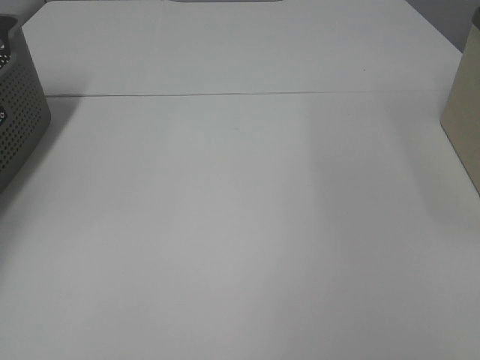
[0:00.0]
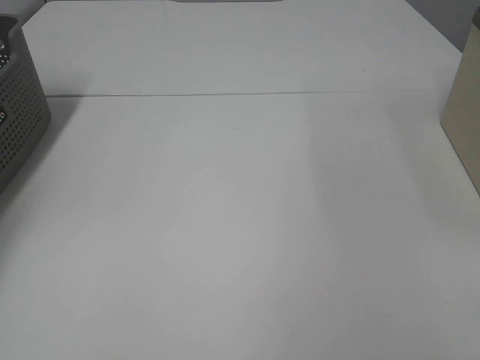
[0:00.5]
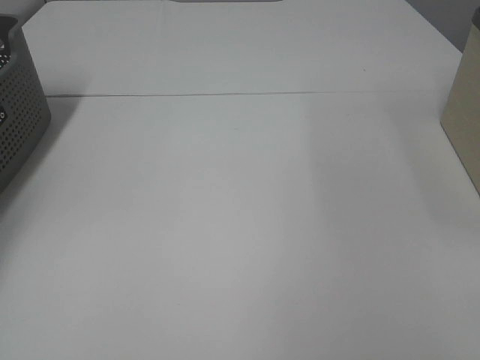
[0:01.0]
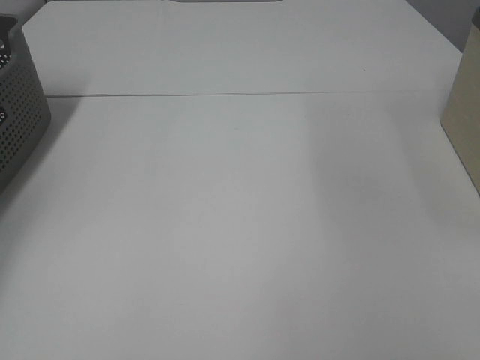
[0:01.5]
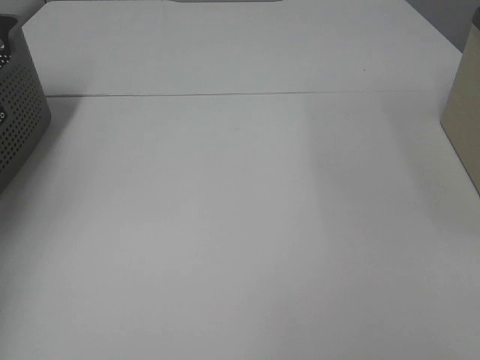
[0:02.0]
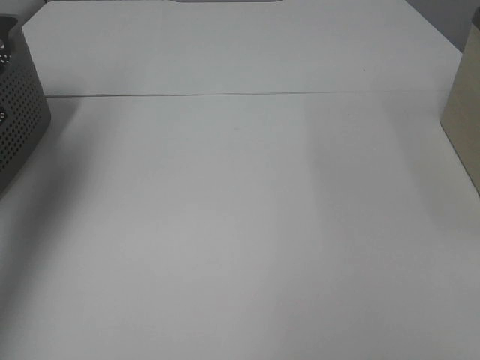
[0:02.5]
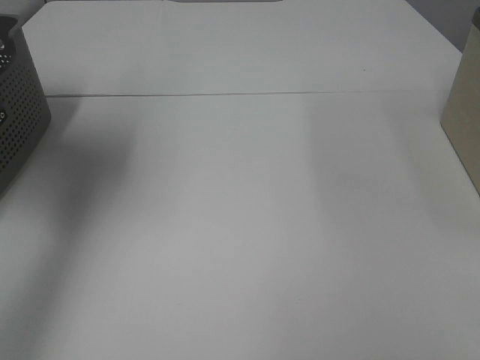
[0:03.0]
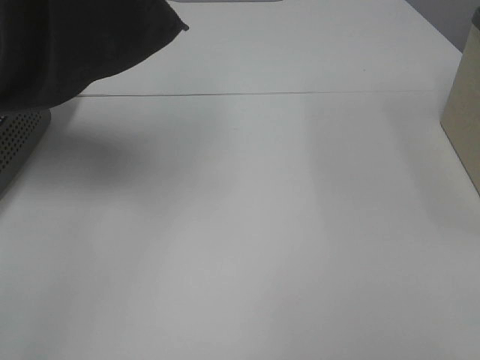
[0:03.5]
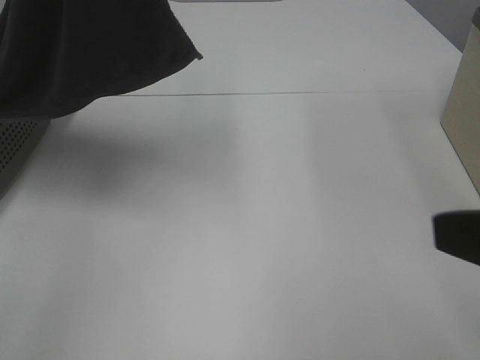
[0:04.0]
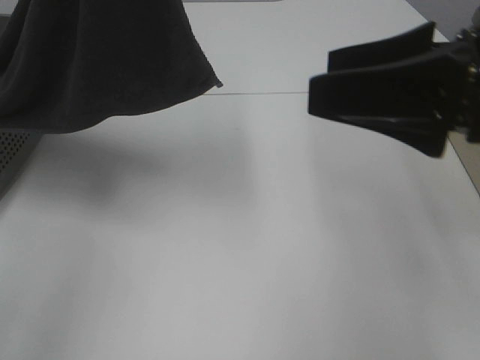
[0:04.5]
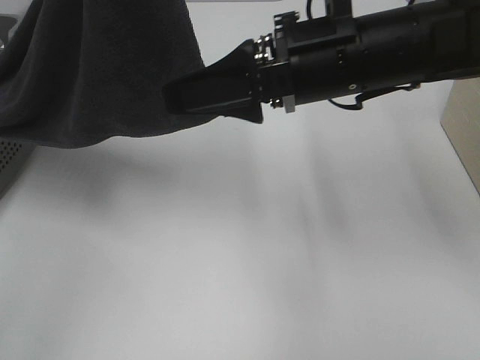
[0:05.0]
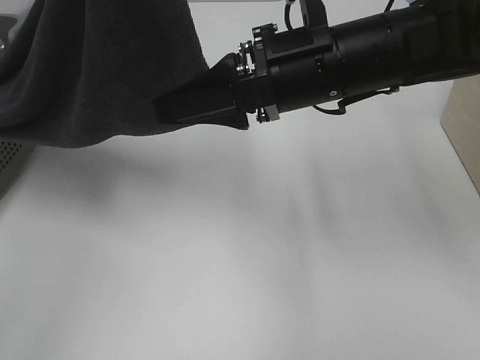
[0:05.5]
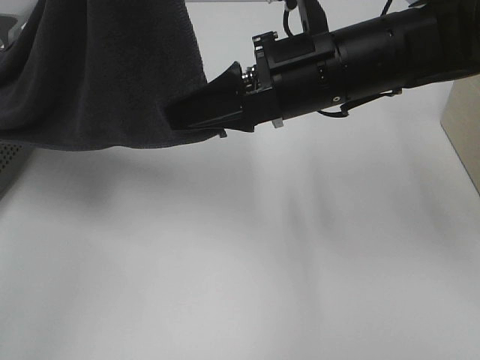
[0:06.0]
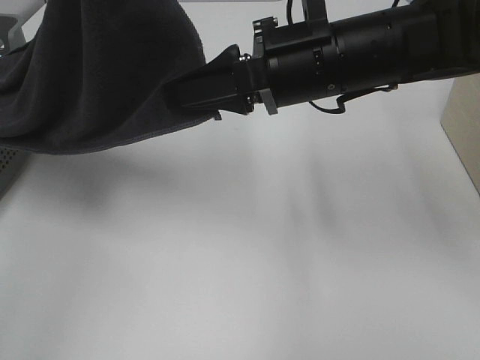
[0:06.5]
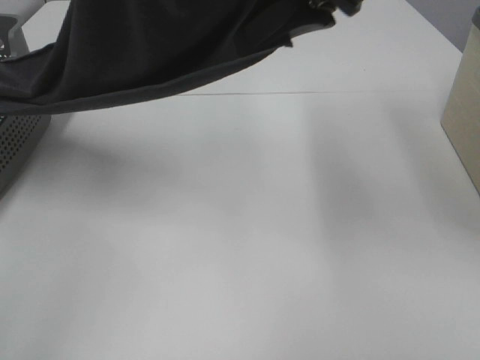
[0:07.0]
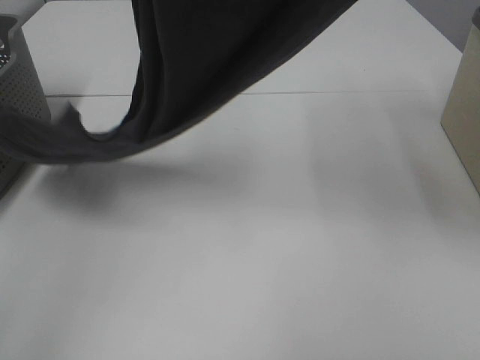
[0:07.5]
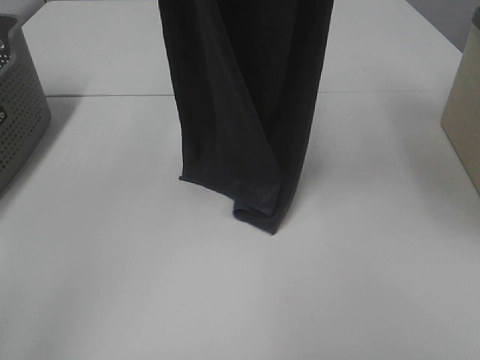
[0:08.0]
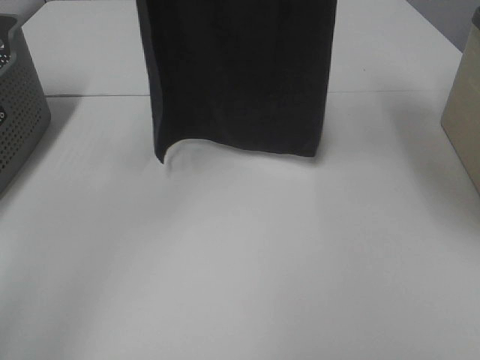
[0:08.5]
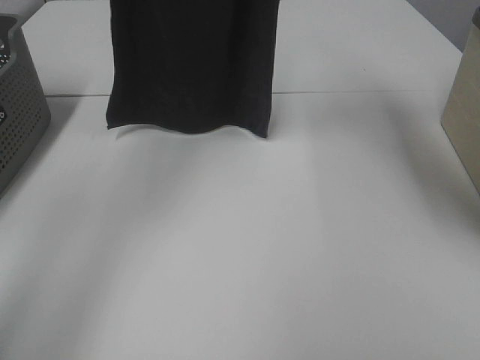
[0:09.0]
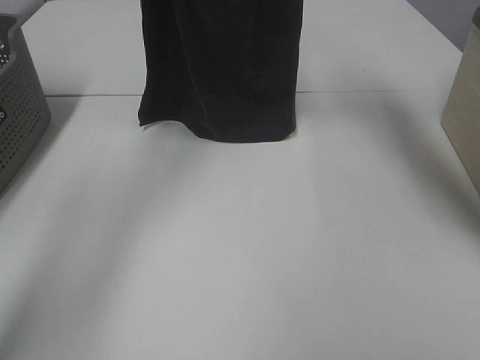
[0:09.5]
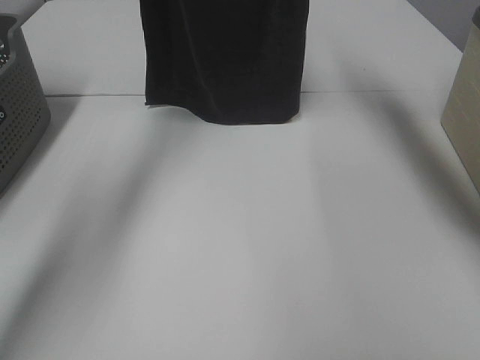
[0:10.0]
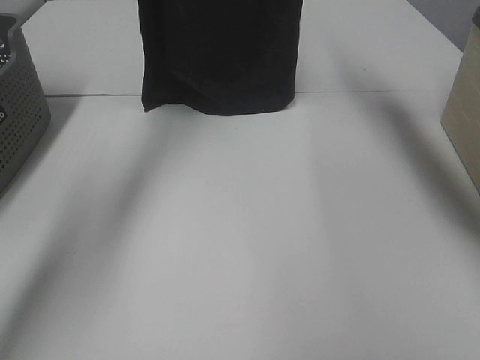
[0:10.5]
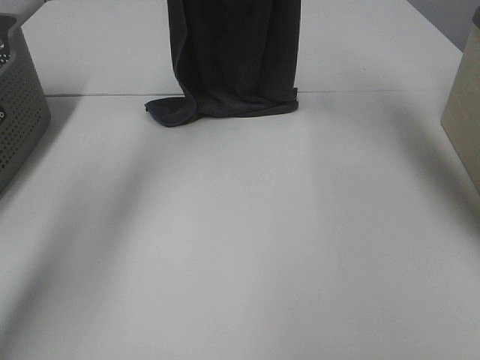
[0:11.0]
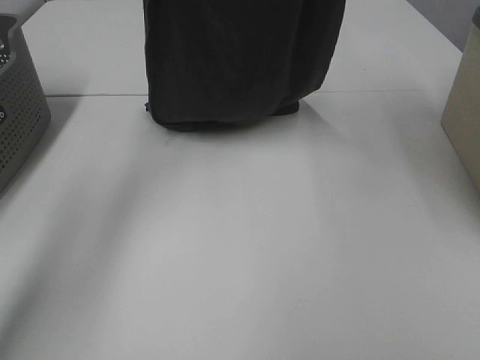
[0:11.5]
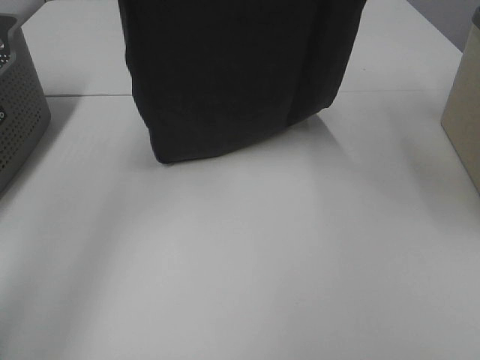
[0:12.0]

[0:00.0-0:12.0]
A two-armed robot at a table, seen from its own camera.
Task of the whole recording: Remove the towel and place it.
Step, 2.5 to 7.0 s: Right hand: grab a corner of the grey towel and straighten it.
Step, 7.5 to 12.0 s: Left hand: spread the grey towel flat on the table.
Step, 7.5 to 12.0 s: Right hand: spread the grey towel flat on the table.
0.0 to 2.0 s: The left gripper heads upward, covering about 20 cm, and closes up.
2.0 to 4.0 s: The right gripper is displaced forward by some 10 cm, while the left gripper travels to the right and upward by about 25 cm.
4.0 to 6.0 s: The right gripper moves forward and to the left, about 25 cm, and closes.
6.0 to 8.0 s: The left gripper ends up about 5 cm from where it was. The right gripper goes about 25 cm upward.
8.0 to 10.0 s: The left gripper shifts some 20 cm forward and downward. The right gripper travels forward by approximately 15 cm.
10.0 to 12.0 s: The two grippers go approximately 15 cm backward.

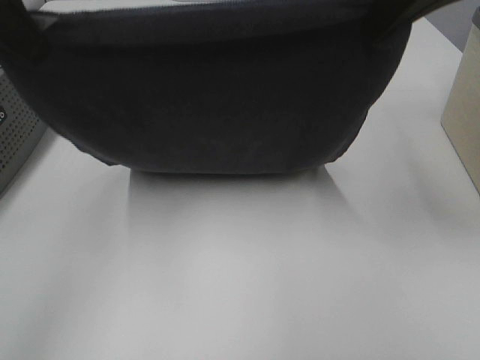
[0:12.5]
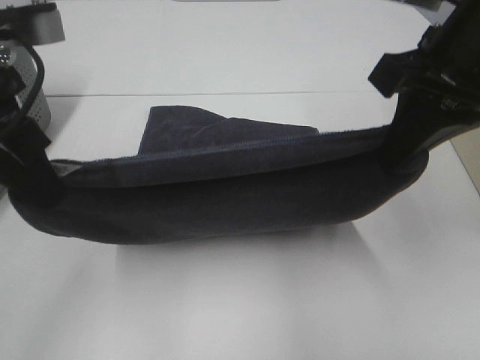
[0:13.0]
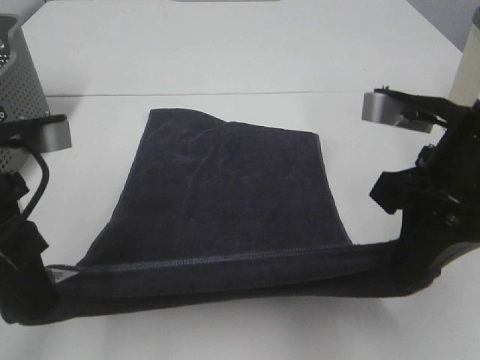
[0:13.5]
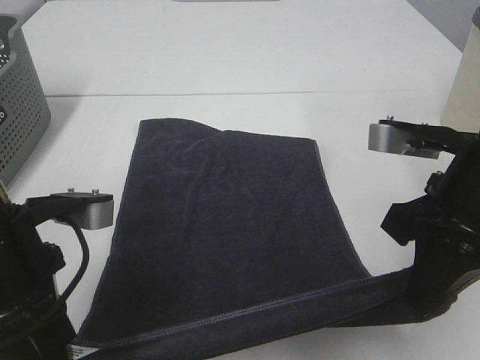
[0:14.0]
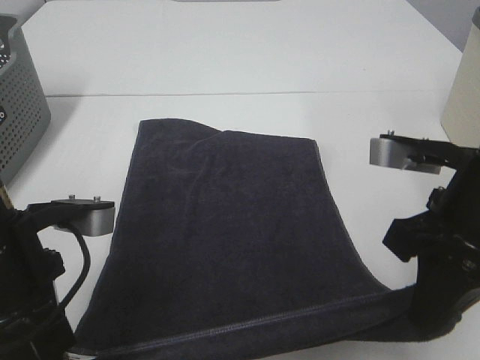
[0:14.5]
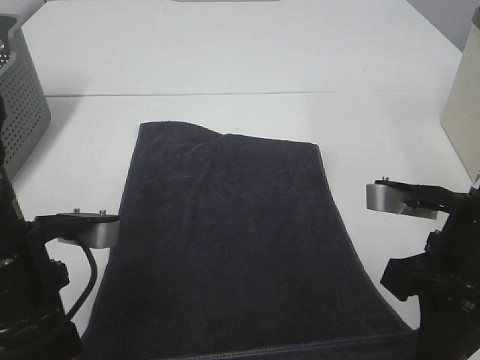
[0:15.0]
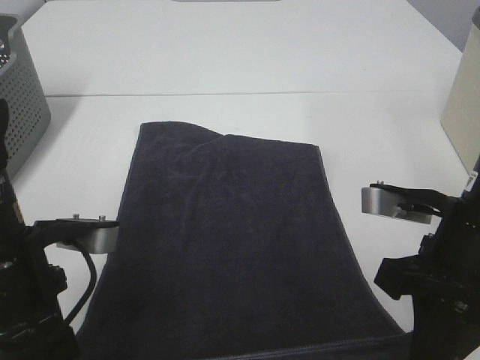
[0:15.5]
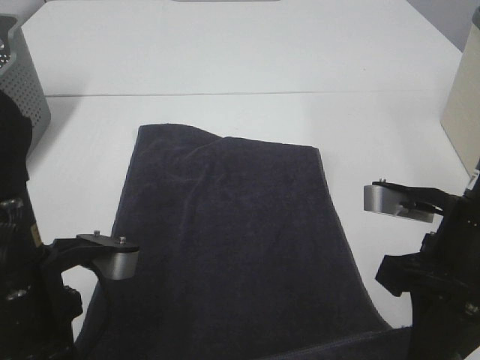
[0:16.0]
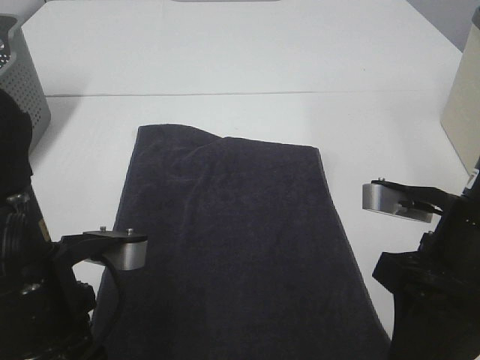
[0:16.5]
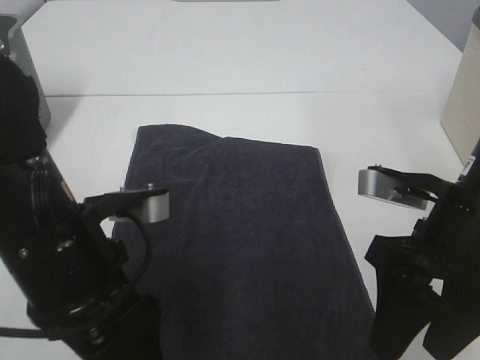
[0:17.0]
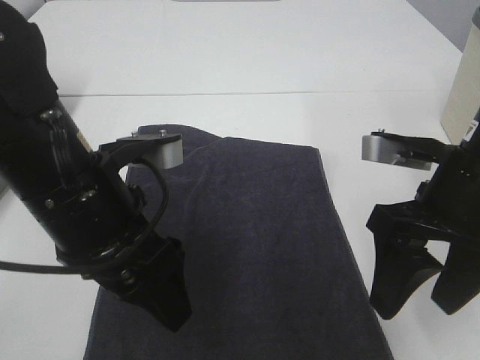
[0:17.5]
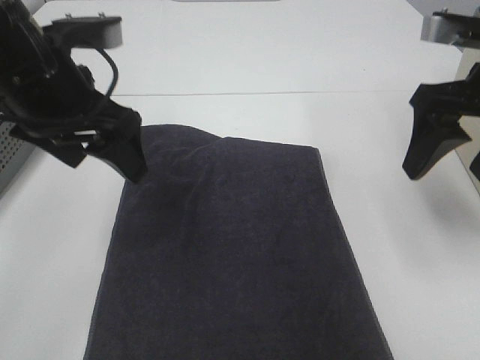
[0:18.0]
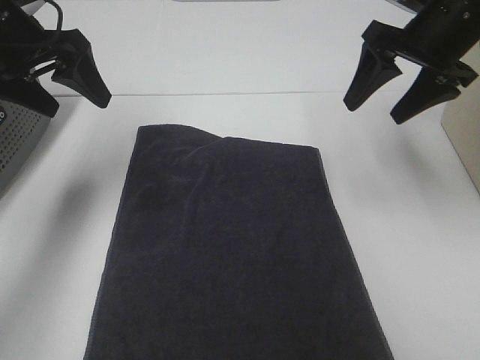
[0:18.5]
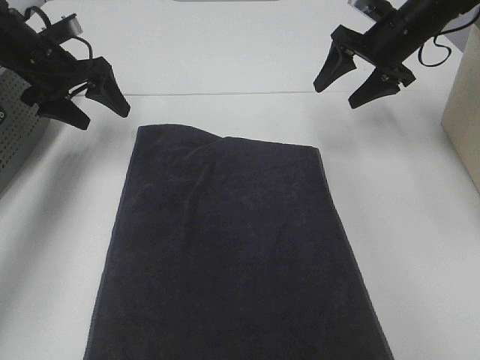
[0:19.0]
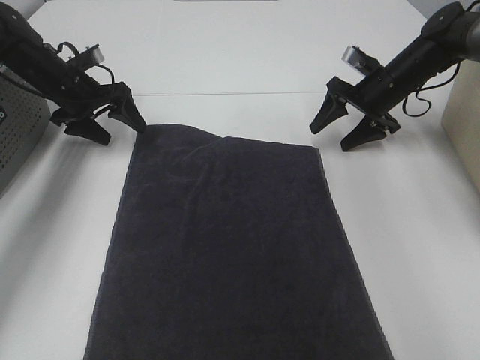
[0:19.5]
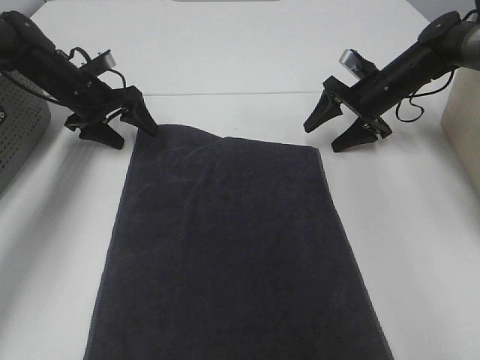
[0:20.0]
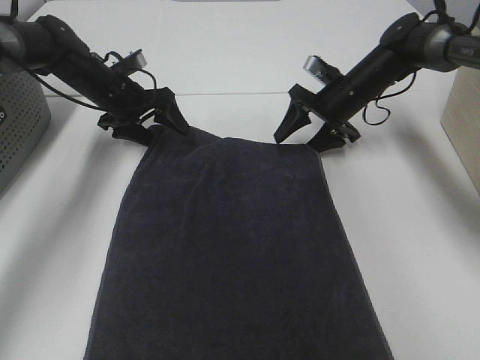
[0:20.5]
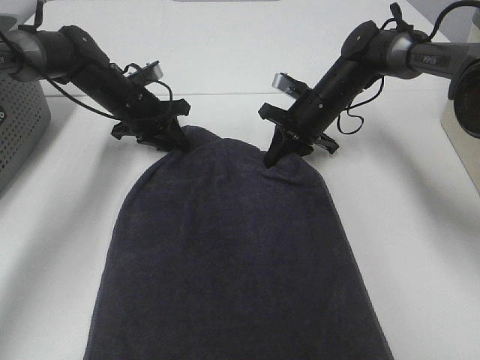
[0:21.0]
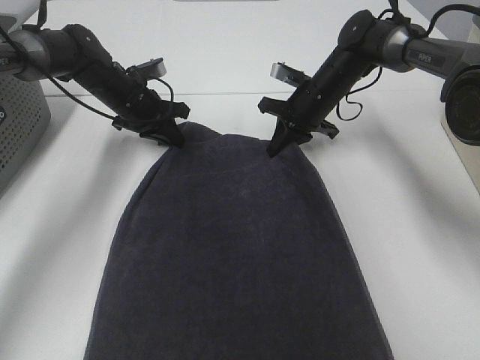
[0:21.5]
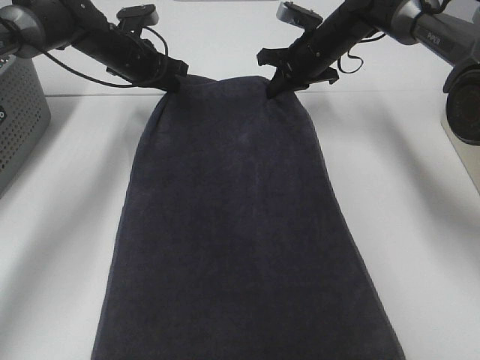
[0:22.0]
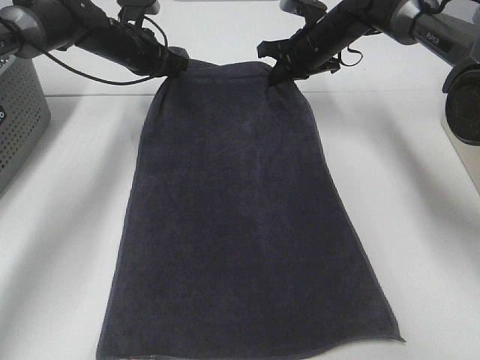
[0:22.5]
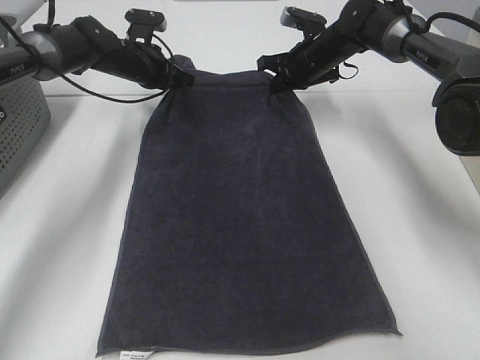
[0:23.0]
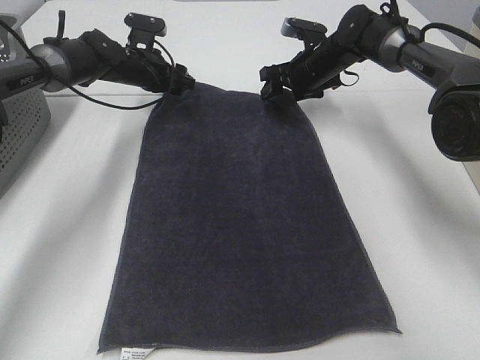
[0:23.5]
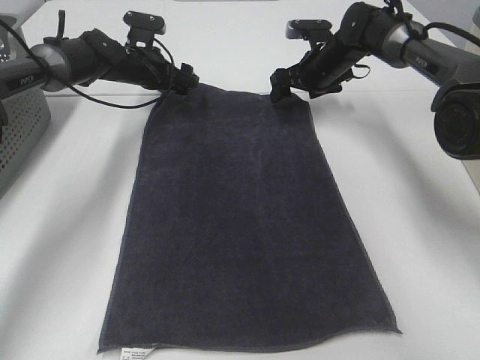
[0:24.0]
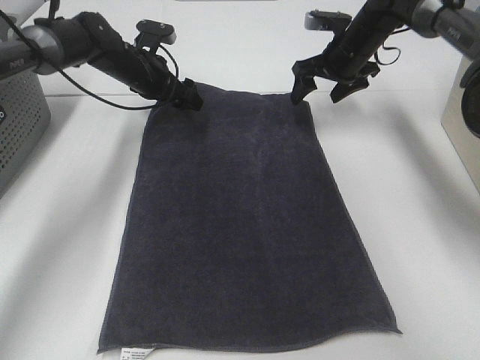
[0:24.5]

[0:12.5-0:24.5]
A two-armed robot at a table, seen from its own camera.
Task of the whole recording: Remove the towel and place it.
Step, 12.5 to 18.5 s: Left hand:adjust the gray towel.
Step, 12.5 to 18.5 s: Right hand:adjust the gray towel.
12.5 to 14.5 s: The grippers both shift downward and backward by some 20 cm.
14.5 to 16.5 s: The right gripper opens up; the left gripper opens its fingers.
16.5 to 18.5 s: The left gripper goes about 25 cm forward, to the left and upward, and opens up. The right gripper moves forward, some 20 cm.
18.5 to 20.5 s: The grippers both shift downward and forward by some 20 cm.
20.5 to 22.5 s: Both grippers move upward and forward, roughly 10 cm. The left gripper closes up; the right gripper closes its fingers.
22.5 to 24.5 s: The right gripper opens up. Meanwhile the left gripper opens.

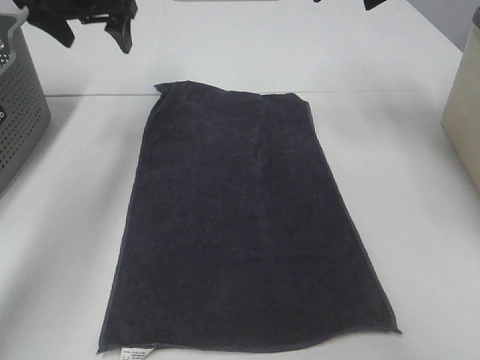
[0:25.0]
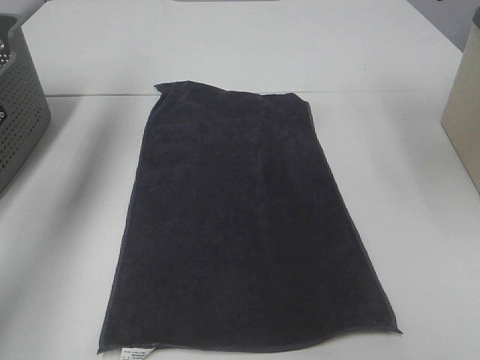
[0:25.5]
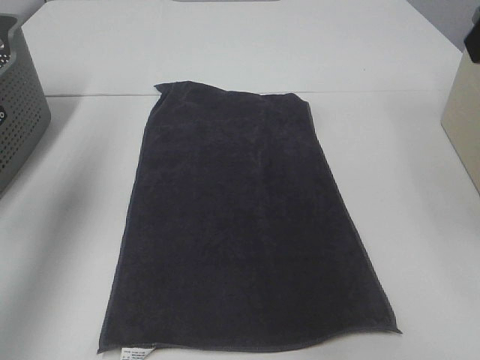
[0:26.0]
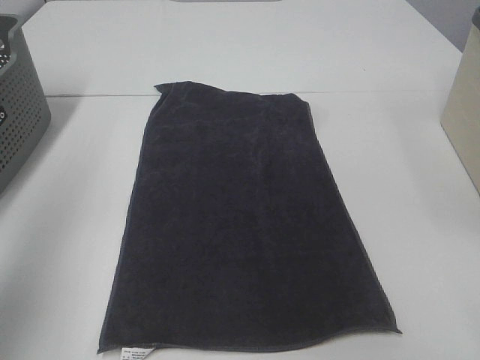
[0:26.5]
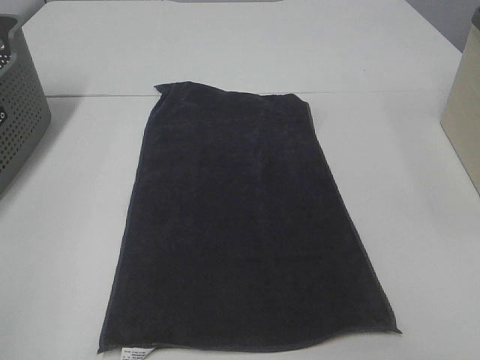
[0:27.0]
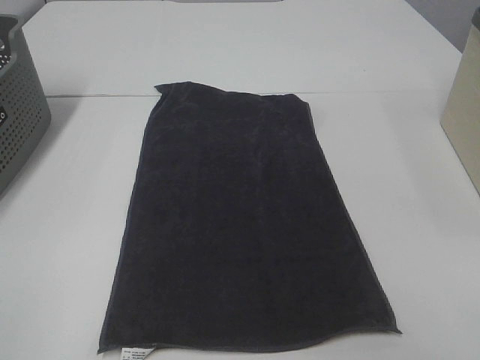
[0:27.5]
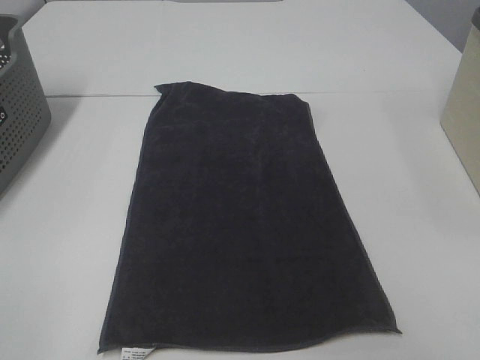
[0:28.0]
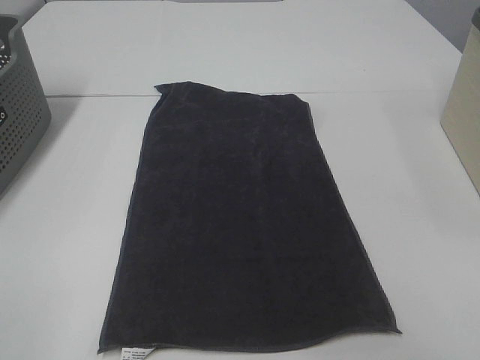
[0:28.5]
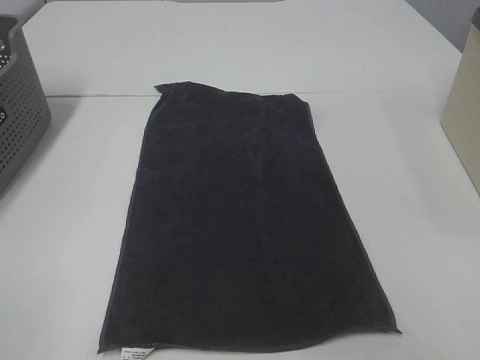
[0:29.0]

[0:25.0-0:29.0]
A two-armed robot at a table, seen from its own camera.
Task of the whole recording: Remove the towel and place it.
25.0 to 27.0 s: The two grippers go about 50 cm backward.
